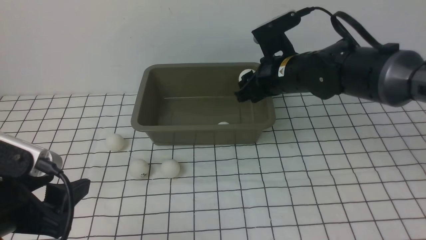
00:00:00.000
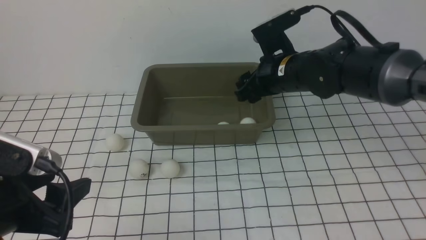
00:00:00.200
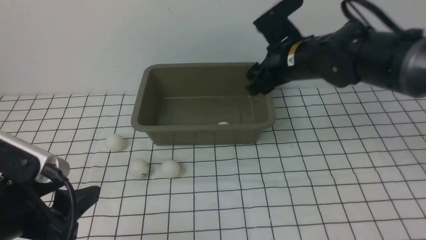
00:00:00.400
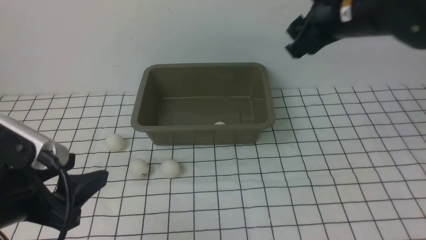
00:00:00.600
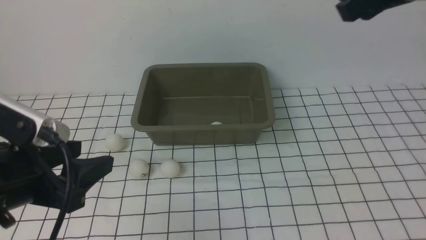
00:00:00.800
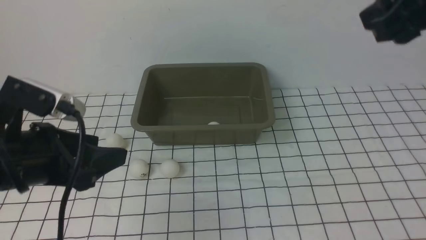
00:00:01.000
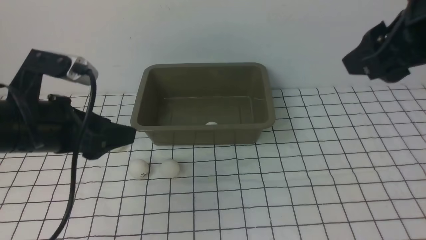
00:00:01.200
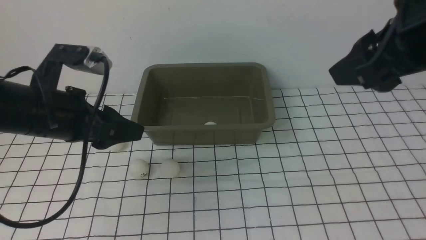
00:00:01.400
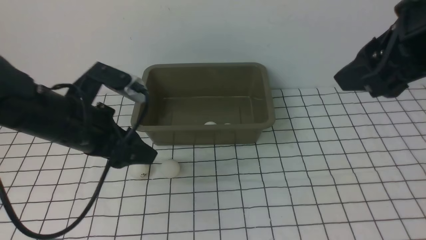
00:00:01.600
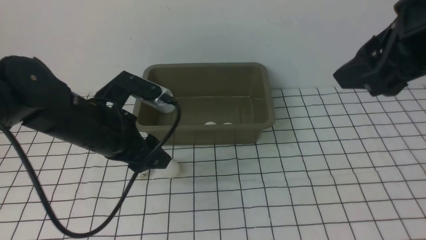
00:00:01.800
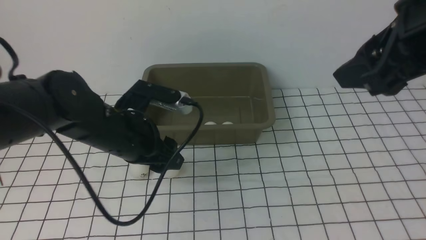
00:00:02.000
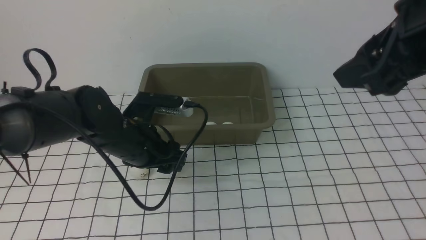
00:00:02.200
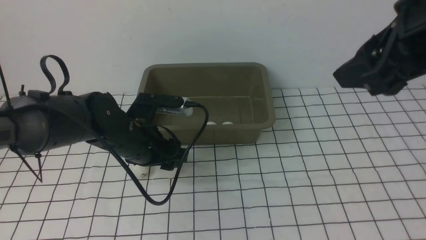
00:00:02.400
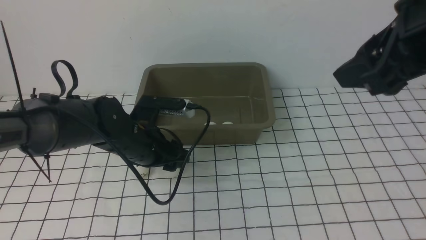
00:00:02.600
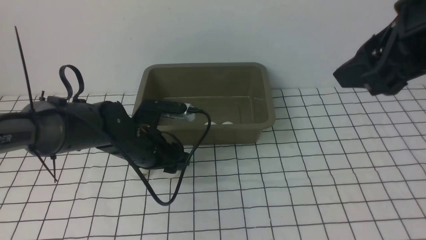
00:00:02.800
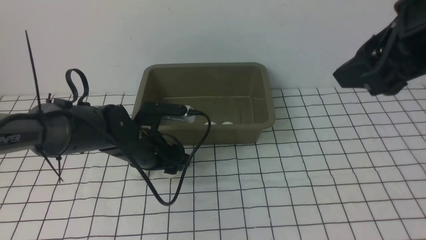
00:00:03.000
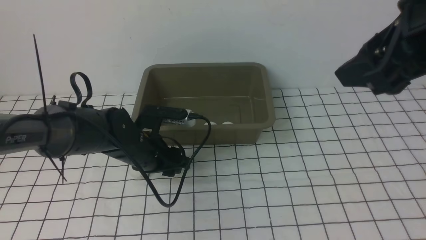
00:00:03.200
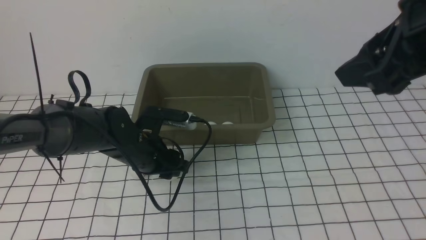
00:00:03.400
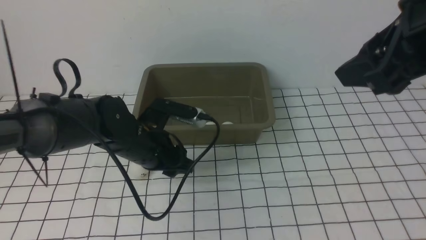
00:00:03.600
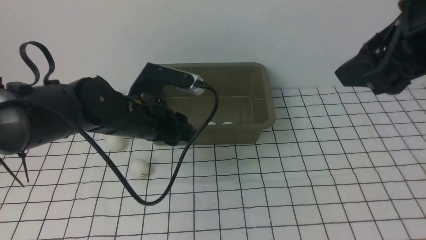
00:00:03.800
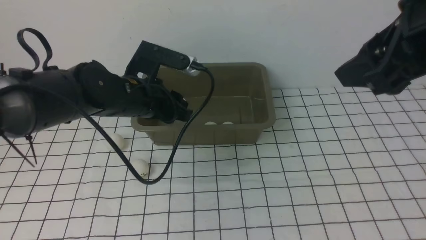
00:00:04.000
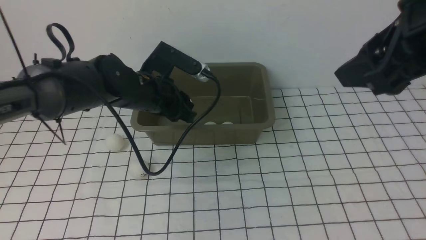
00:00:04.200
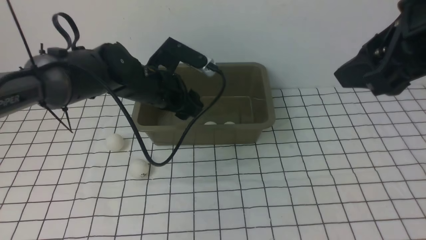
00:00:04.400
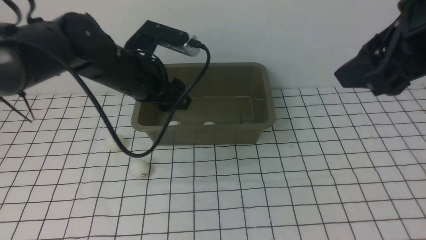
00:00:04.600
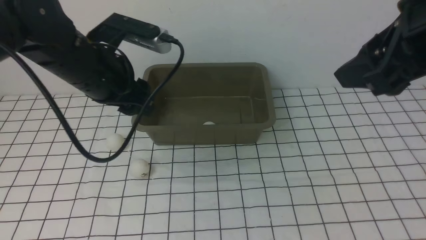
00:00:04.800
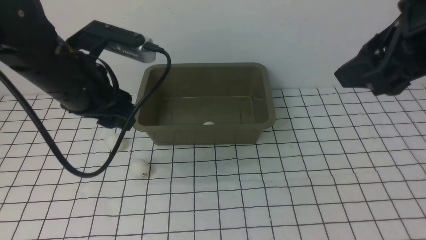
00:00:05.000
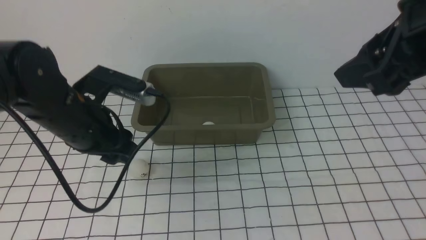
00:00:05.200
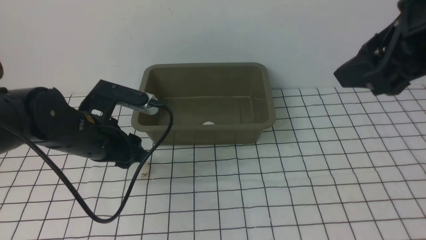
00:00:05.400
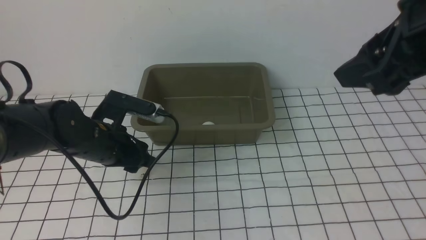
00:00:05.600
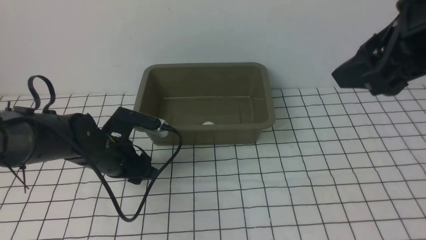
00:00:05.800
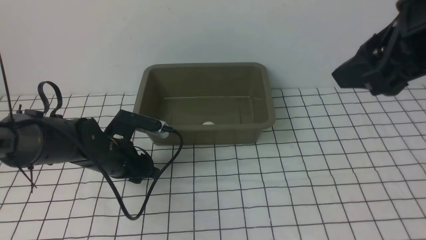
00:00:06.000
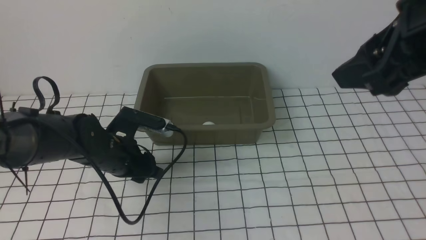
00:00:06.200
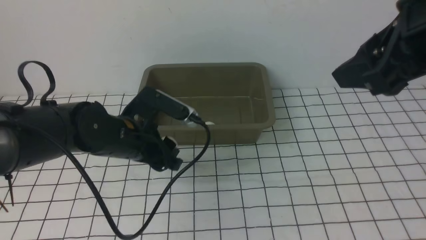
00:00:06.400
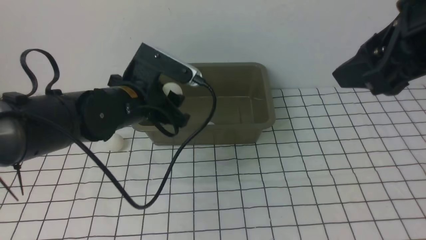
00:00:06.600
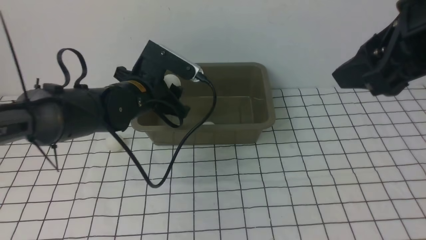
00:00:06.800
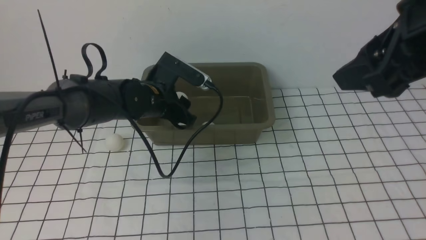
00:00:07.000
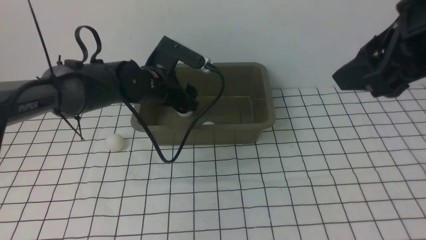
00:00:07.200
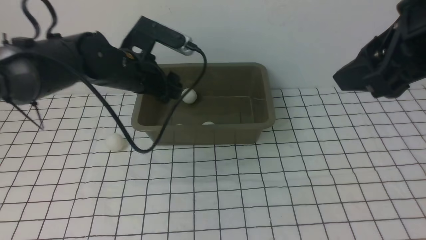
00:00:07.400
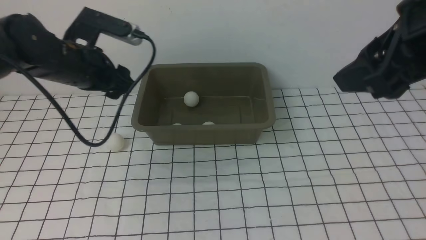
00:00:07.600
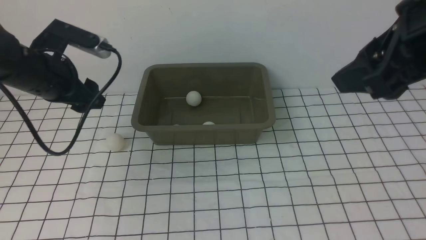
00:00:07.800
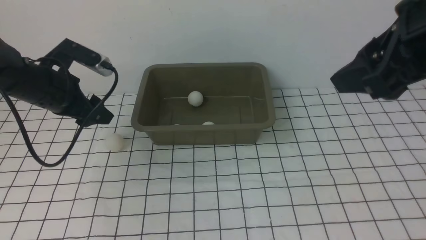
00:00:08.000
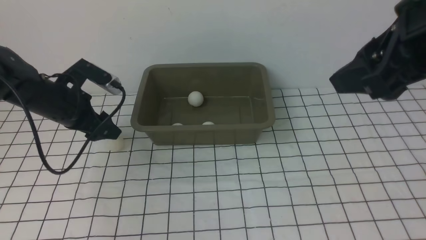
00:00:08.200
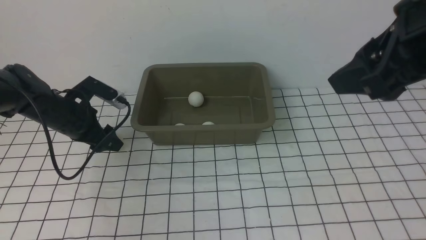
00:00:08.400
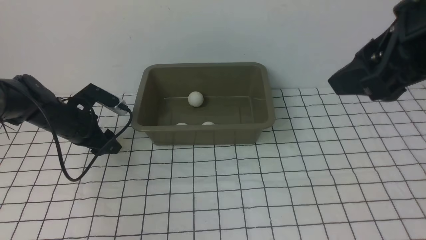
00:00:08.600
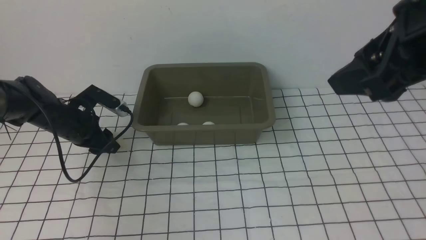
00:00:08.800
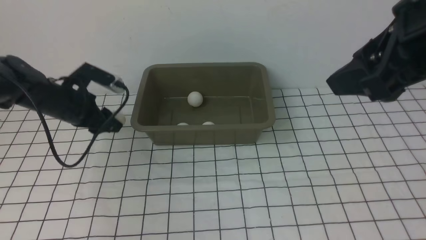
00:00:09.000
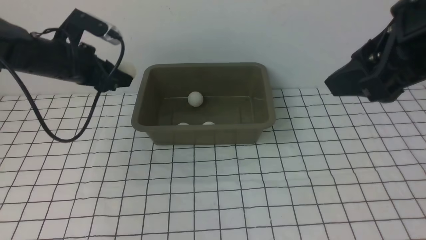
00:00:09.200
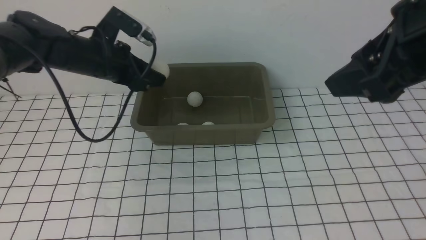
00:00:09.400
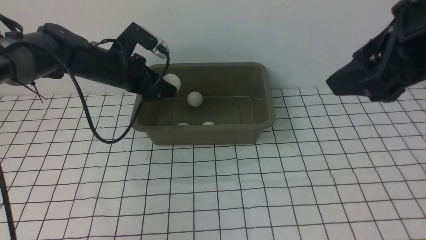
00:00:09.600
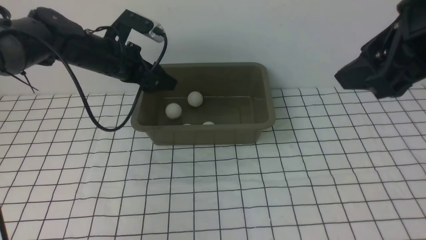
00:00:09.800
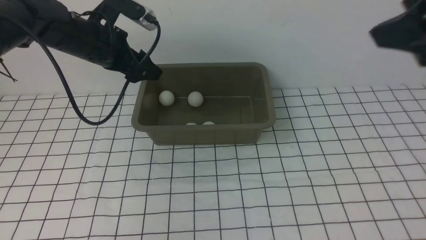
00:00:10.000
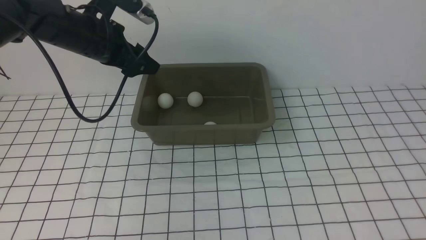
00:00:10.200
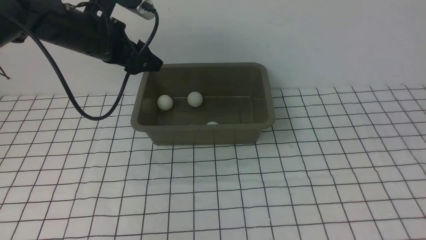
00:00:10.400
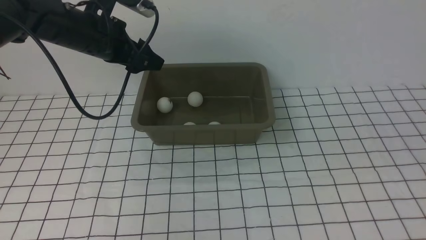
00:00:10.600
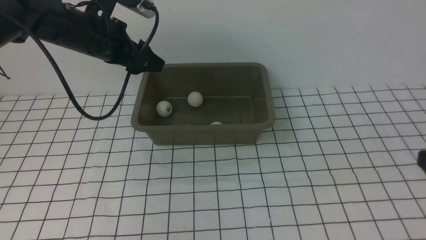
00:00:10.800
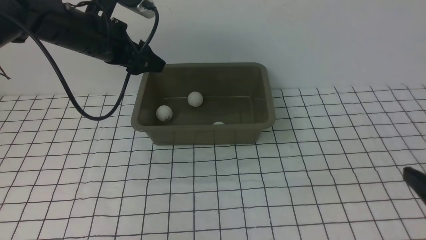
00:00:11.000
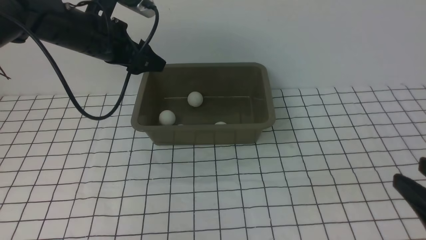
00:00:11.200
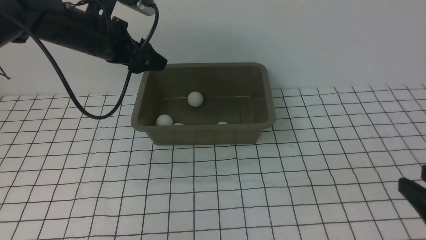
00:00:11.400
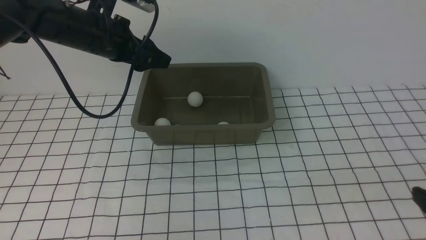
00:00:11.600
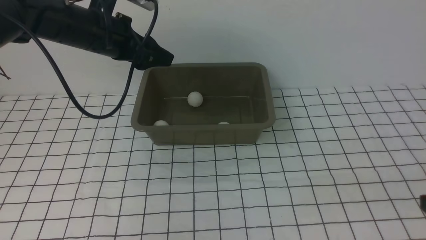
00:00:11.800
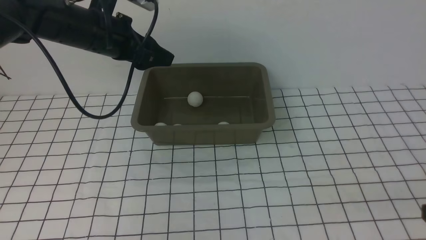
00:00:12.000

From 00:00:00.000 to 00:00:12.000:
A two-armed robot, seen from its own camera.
Step, from 00:00:00.400 to 00:00:03.600: use the left arm to clamp the table tennis ball closest to it.
Step, from 00:00:03.800 to 00:00:04.400: use the left arm to put the table tennis ball into the box.
Step, from 00:00:04.800 to 00:00:06.400: use the left arm to clamp the table tennis ball closest to it.
Step, from 00:00:06.600 to 00:00:07.200: use the left arm to put the table tennis ball into the box.
Step, from 00:00:07.400 to 00:00:09.000: use the left arm to clamp the table tennis ball closest to it.
Step, from 00:00:09.200 to 00:00:09.800: use the left arm to put the table tennis ball into the box.
From 00:00:00.000 to 00:00:01.600: The left gripper shifts approximately 15 cm forward and to the right. The right gripper shifts roughly 25 cm upward, backward and to the right.
From 00:00:01.600 to 00:00:03.000: The left gripper goes roughly 10 cm downward and forward.
From 00:00:03.000 to 00:00:04.400: The left gripper shifts about 10 cm upward, and opens.
From 00:00:04.400 to 00:00:06.000: The left gripper is displaced downward, backward and to the left by approximately 15 cm, and closes up.
From 00:00:06.000 to 00:00:07.600: The left gripper heads upward, covering roughly 15 cm, and opens up.
From 00:00:07.600 to 00:00:09.000: The left gripper moves downward, some 10 cm, and closes up.
From 00:00:09.000 to 00:00:10.400: The right gripper shifts some 15 cm backward and to the right. The left gripper shifts approximately 15 cm upward and to the right, and opens its fingers.
From 00:00:10.400 to 00:00:12.000: The right gripper heads downward, covering about 20 cm, and closes its fingers.

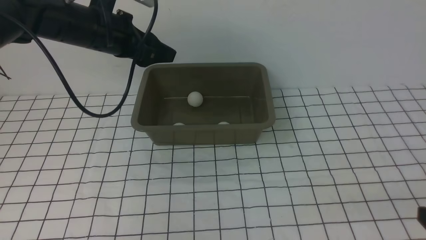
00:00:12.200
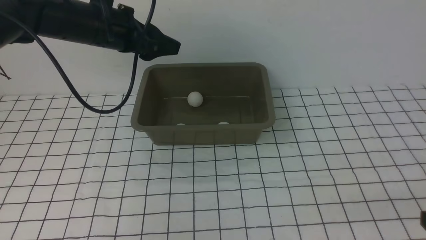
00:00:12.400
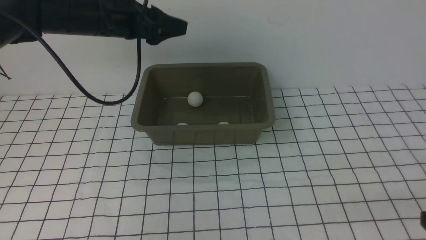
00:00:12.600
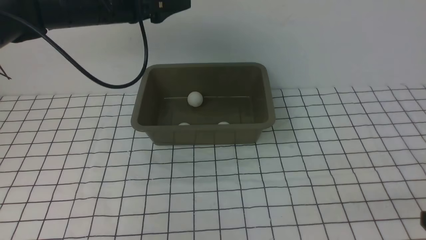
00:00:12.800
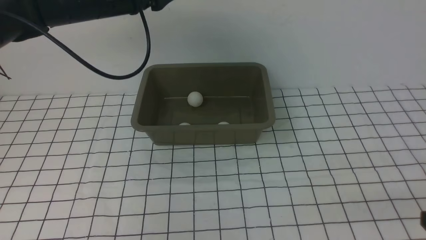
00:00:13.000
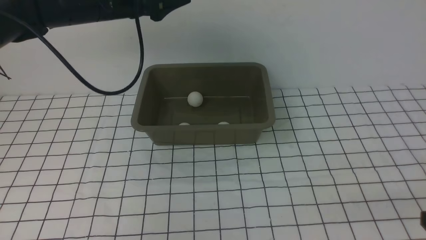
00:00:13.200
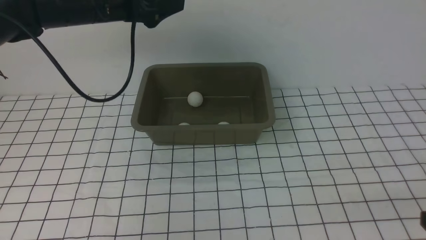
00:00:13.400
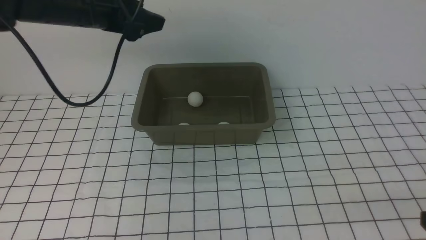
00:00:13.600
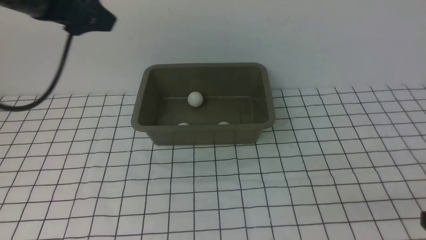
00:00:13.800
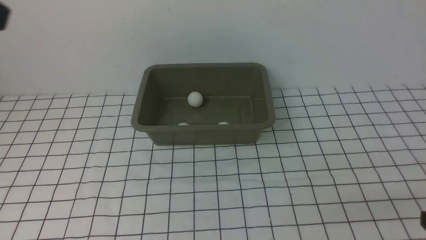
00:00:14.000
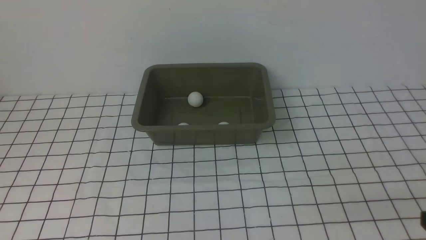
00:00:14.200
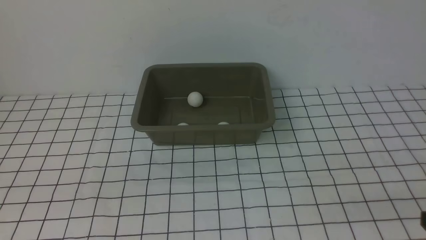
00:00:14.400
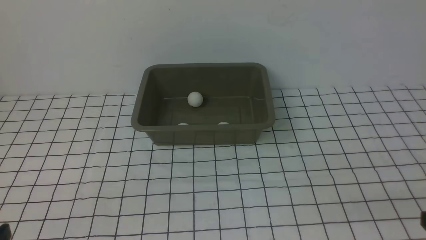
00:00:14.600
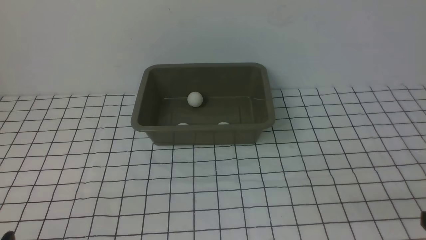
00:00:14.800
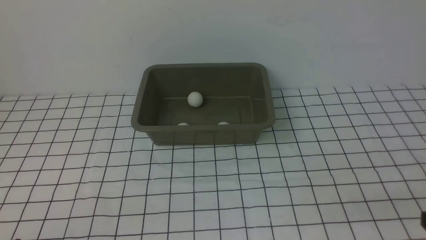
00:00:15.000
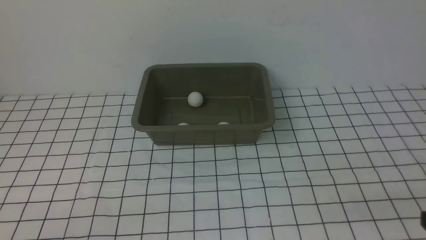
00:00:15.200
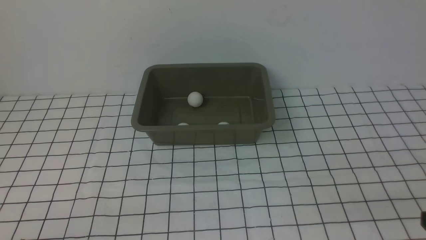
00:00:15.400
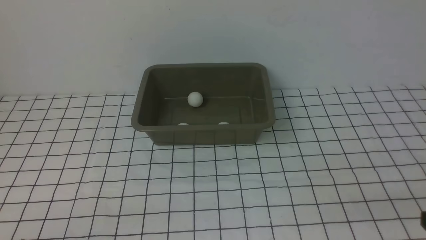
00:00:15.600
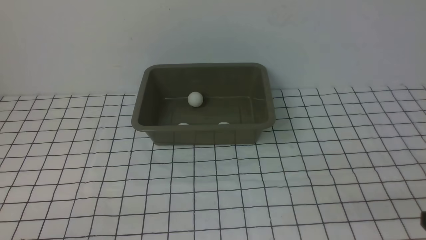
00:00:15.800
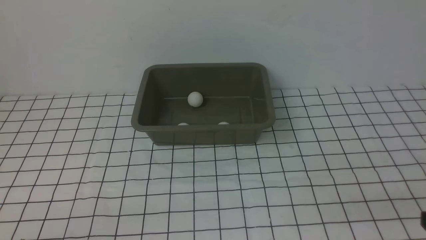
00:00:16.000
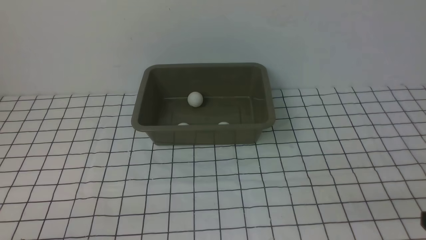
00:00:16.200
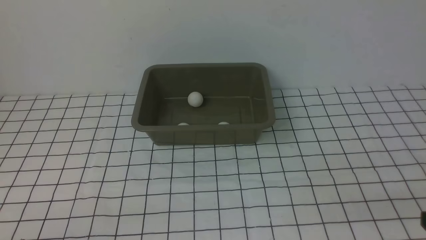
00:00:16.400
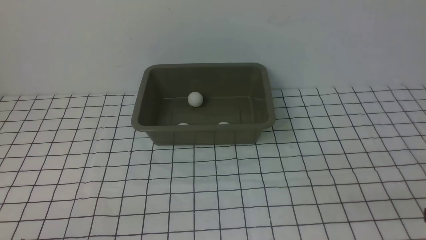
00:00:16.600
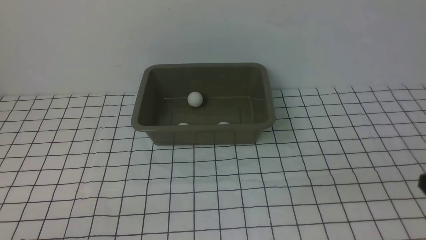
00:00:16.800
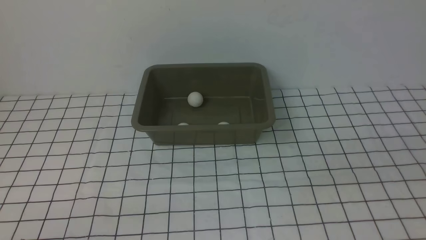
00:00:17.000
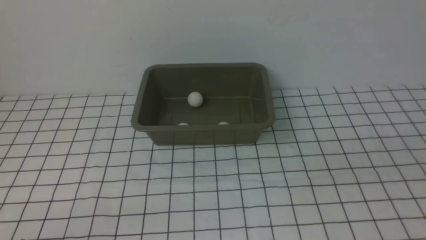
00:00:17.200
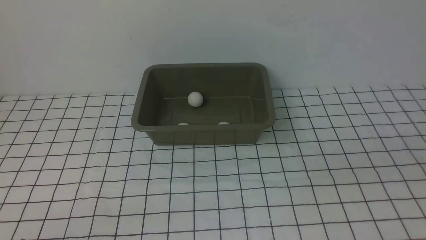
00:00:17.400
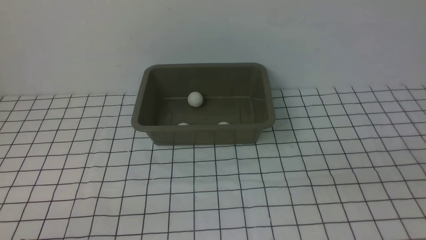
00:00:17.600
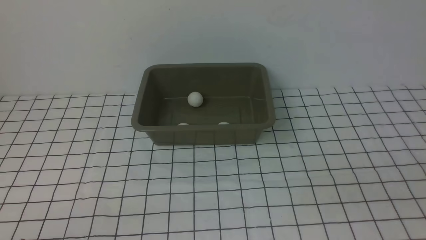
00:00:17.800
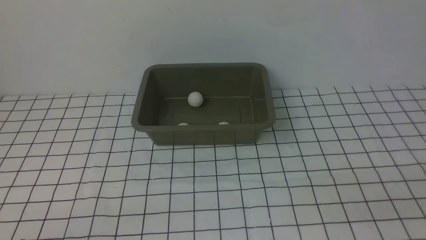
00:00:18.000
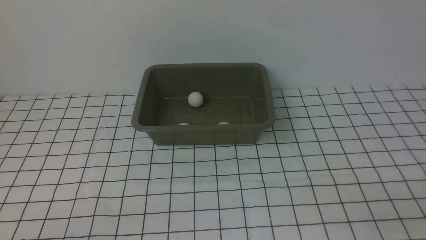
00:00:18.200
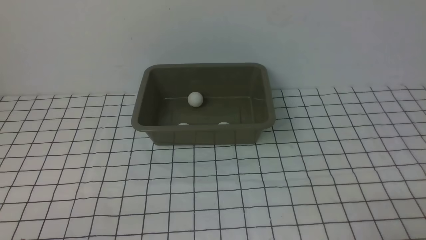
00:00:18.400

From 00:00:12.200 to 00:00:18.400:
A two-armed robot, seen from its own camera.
From 00:00:12.200 to 00:00:13.800: The left gripper travels backward and upward by approximately 20 cm.
From 00:00:13.800 to 00:00:15.400: The left gripper goes roughly 35 cm downward and backward.
